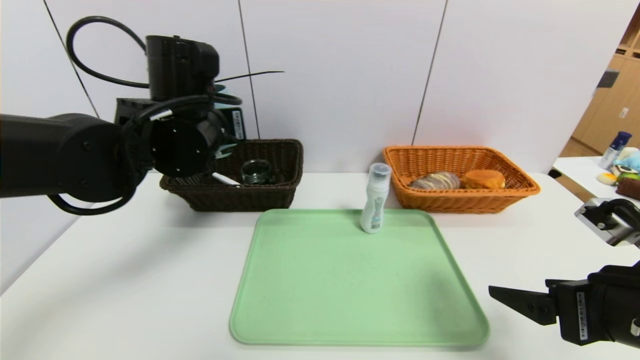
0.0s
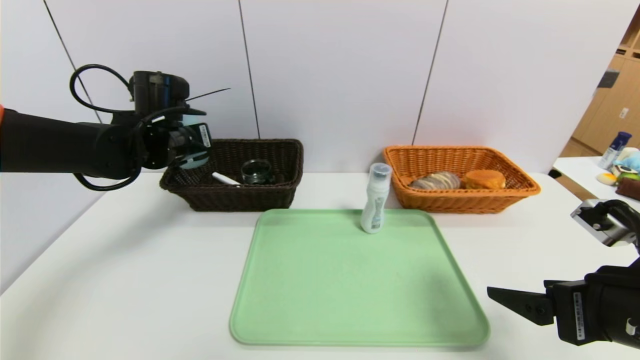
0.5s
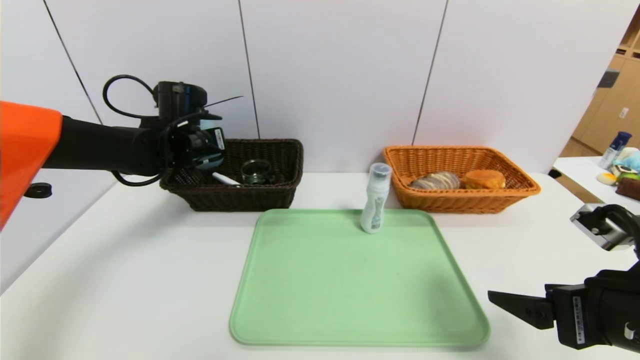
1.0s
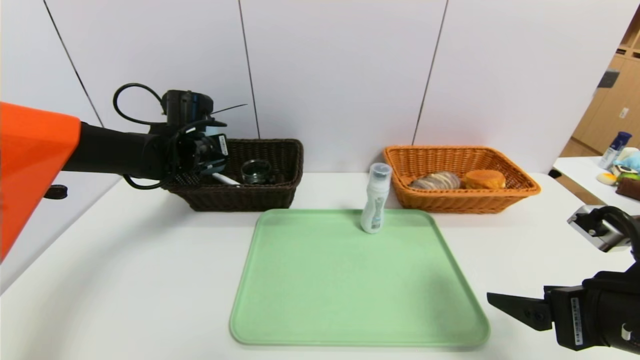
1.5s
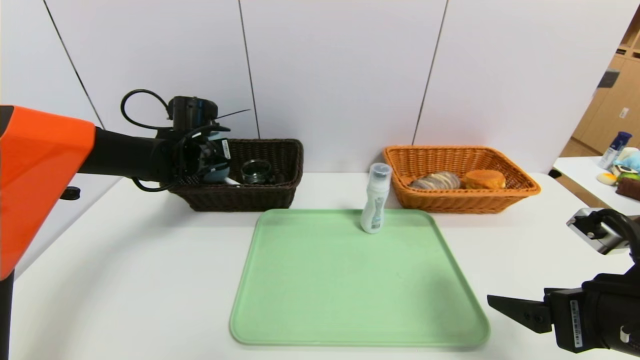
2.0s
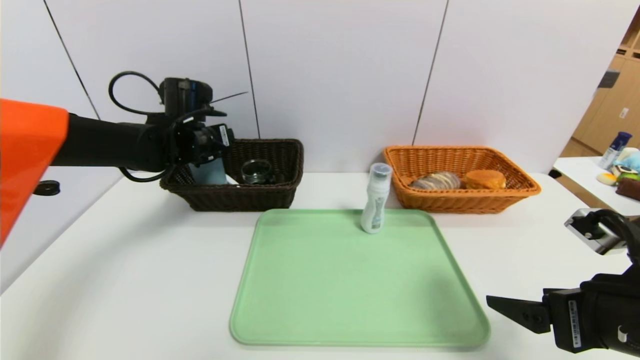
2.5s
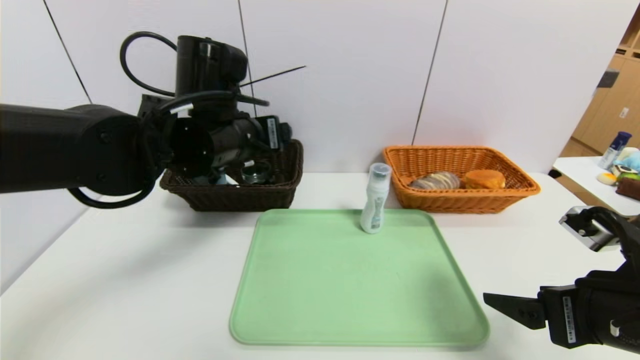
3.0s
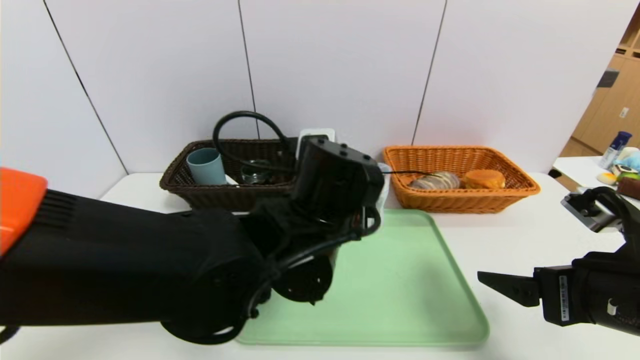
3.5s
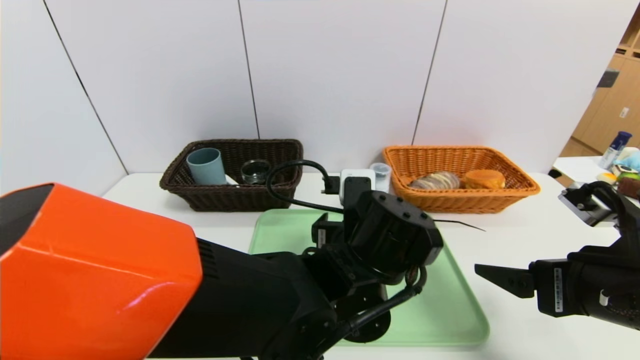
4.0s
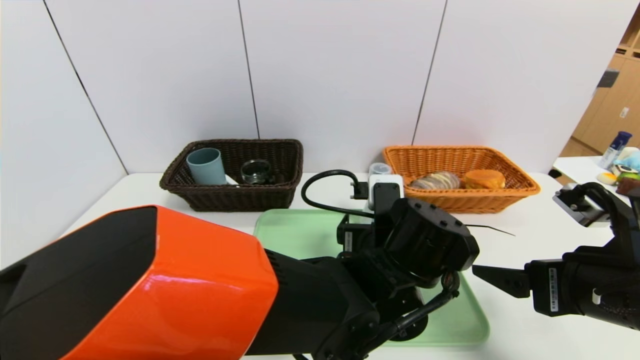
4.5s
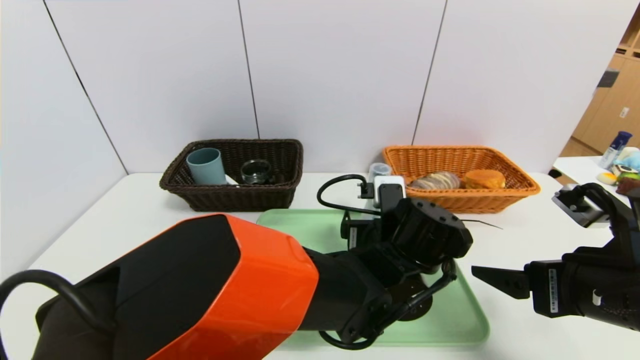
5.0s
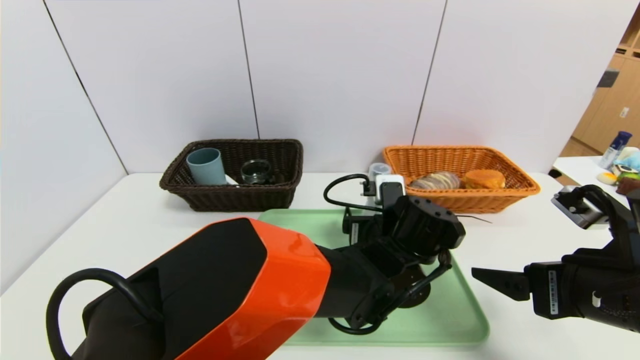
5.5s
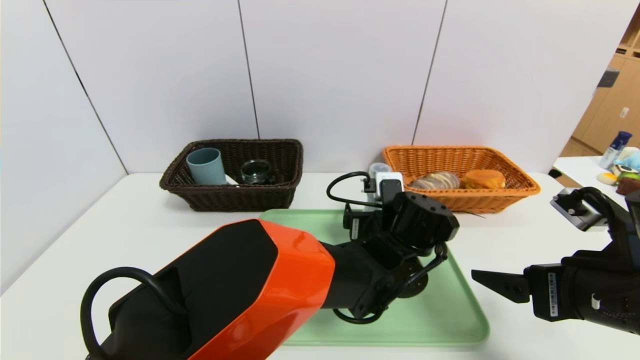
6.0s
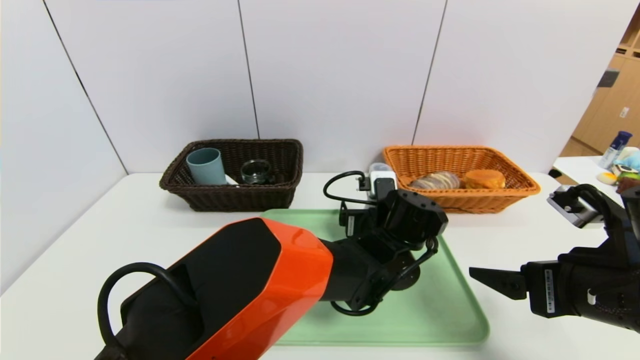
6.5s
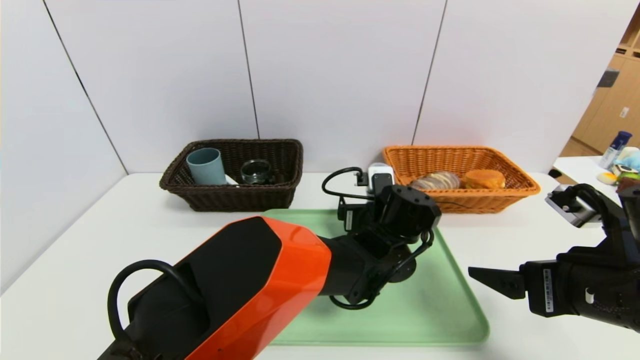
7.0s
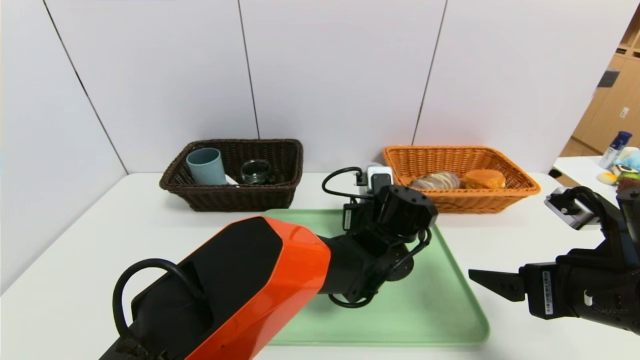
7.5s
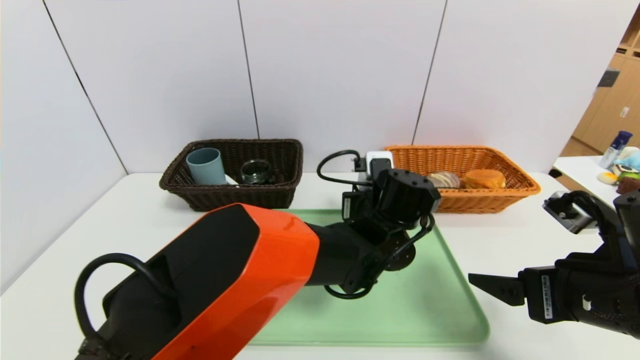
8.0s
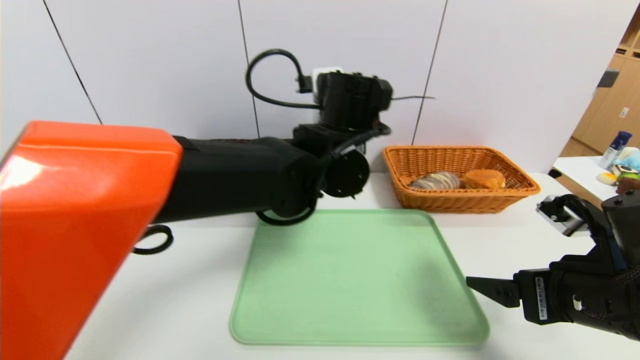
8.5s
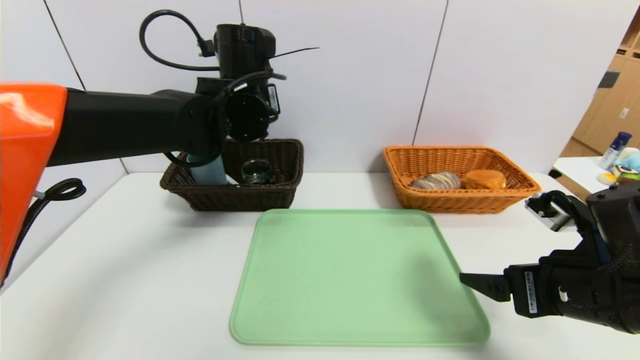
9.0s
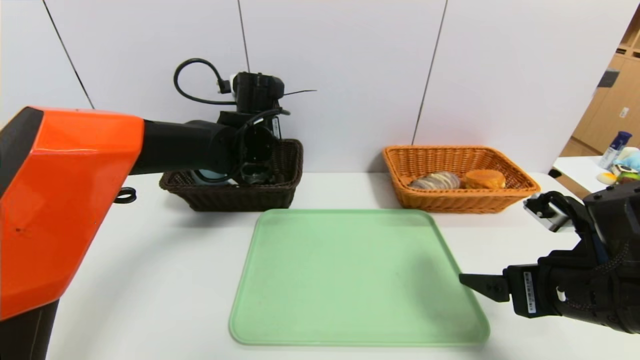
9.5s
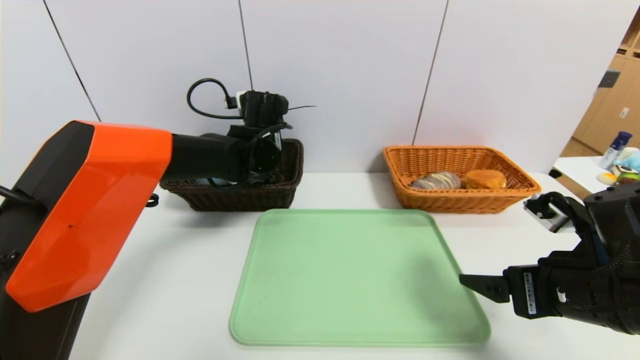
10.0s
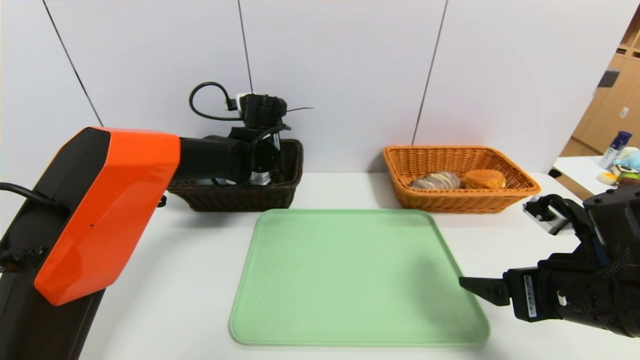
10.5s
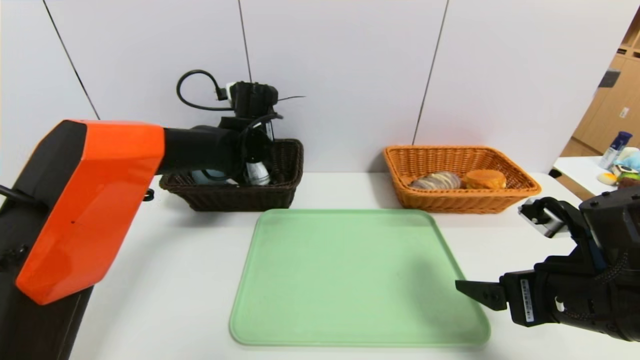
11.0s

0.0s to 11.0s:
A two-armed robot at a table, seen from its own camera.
Task of the whole recording: place the food in the right basket with the right gripper, and place the non food items in the left basket with the left gripper.
Step, 0.0s to 2.0s: Grasp the blue cup and put it in the left basket.
Step, 2.5s to 10.5s: Grasp the cleaning agent and put it in the left basket.
0.0s to 2.0s: The left gripper shifts about 15 cm forward, downward and to the left.
2.0s to 3.5s: The left gripper travels backward and to the right by approximately 30 cm.
3.5s to 5.5s: The left gripper heads to the right, downward and forward, covering roughly 15 cm.
5.5s to 7.5s: The left gripper closes its fingers.
7.5s to 9.0s: The left gripper travels to the left and upward by roughly 30 cm.
9.0s to 11.0s: The left gripper travels forward and downward by some 10 cm, and opens its fingers.

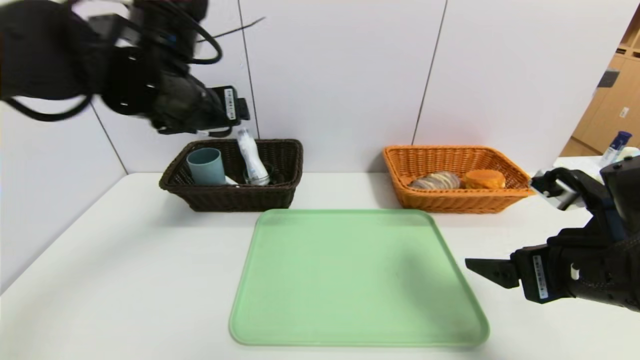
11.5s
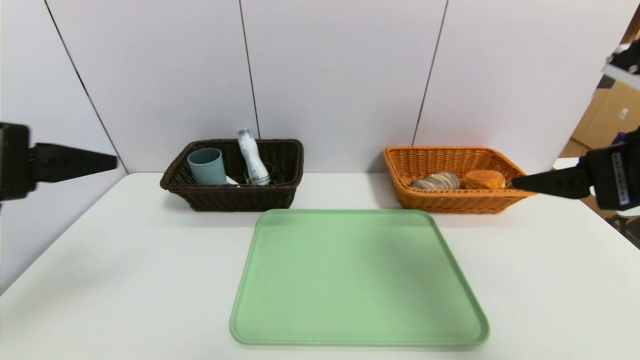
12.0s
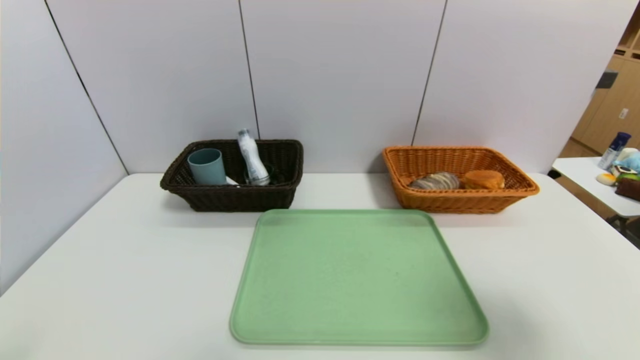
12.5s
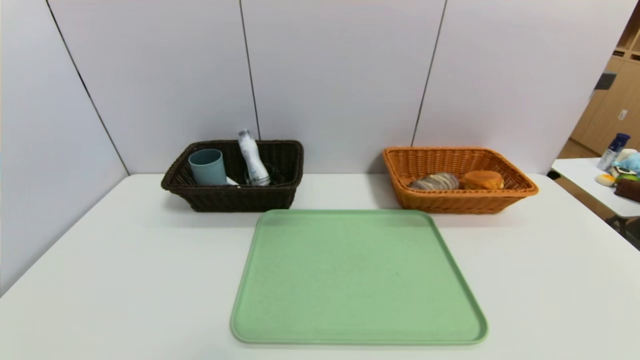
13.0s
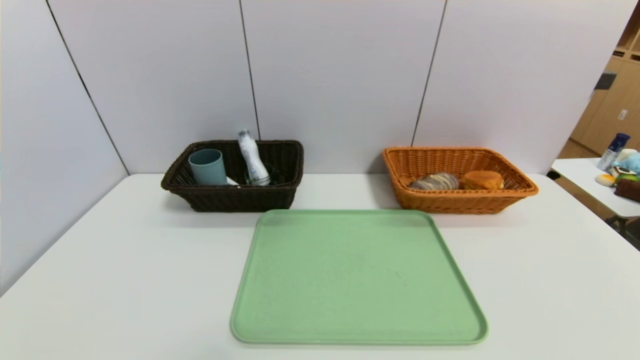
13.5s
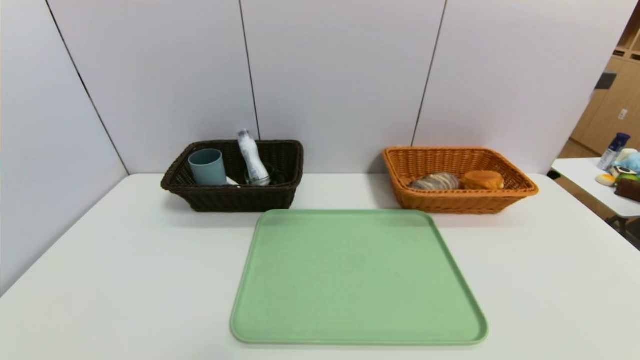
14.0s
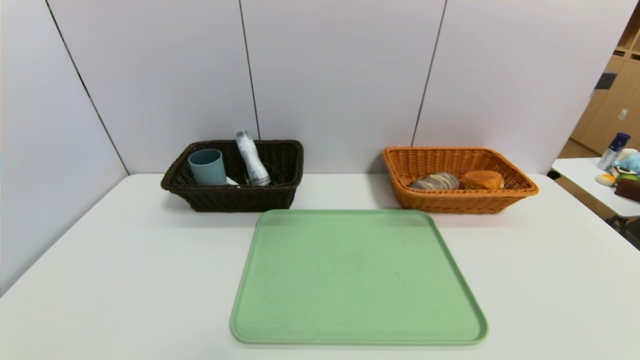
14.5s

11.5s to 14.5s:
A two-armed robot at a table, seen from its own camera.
Task of the whole recording: place the food in the right basket with the right gripper, and place the non food items in the left basket with the left gripper.
11.5s to 13.0s: The right gripper moves backward, roughly 25 cm; the left gripper travels backward and downward by approximately 40 cm.
